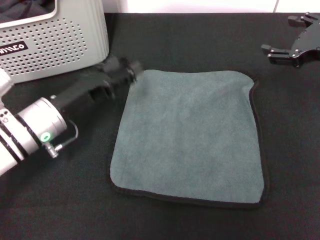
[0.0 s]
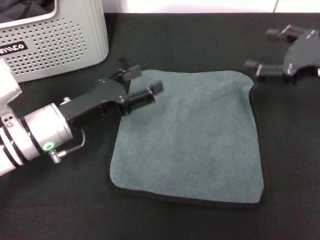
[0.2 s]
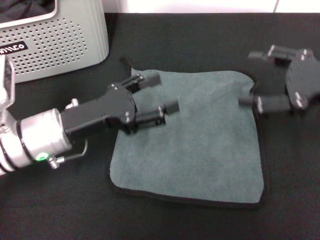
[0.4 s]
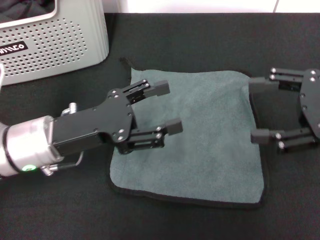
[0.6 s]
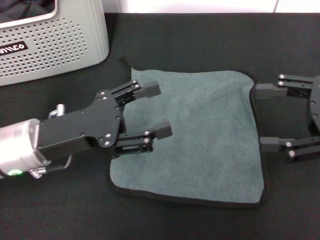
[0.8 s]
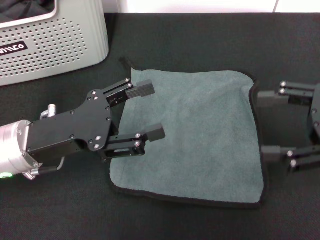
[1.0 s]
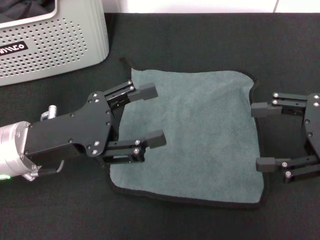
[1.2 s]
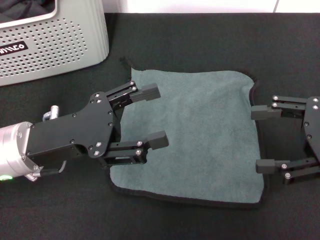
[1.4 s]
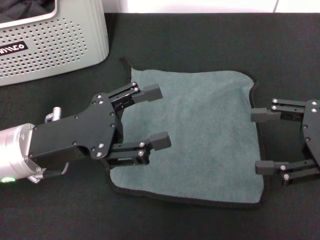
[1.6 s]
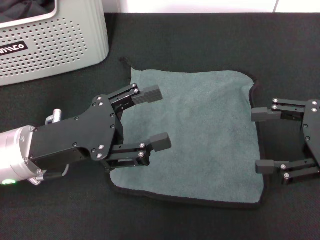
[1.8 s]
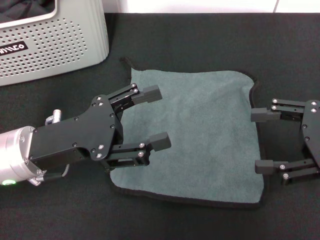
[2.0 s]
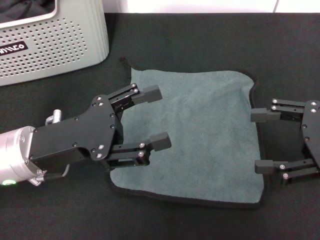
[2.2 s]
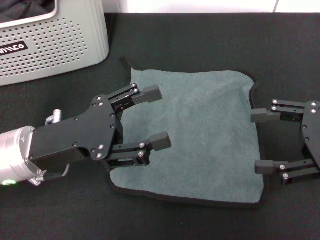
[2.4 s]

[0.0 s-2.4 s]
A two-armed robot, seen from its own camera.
Task of the whole recording: pick up the towel from the storage box and lay it flat on the black tablecloth.
0.0 to 1.2 s: The right gripper is displaced backward by approximately 10 cm. Meanwhile the left gripper travels upward and backward by some 10 cm.
1.2 to 2.4 s: The grippers move only a little.

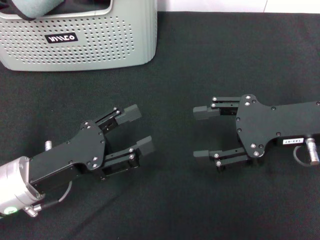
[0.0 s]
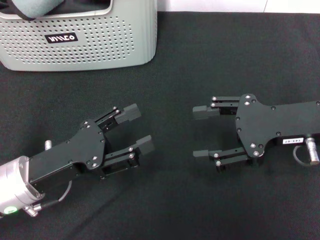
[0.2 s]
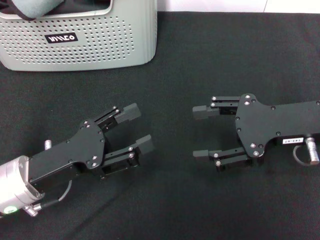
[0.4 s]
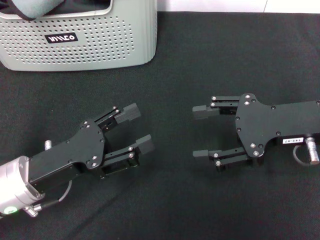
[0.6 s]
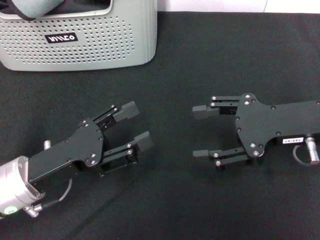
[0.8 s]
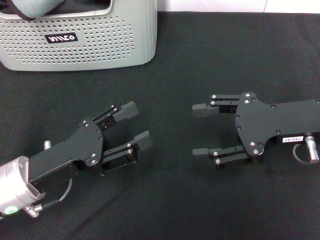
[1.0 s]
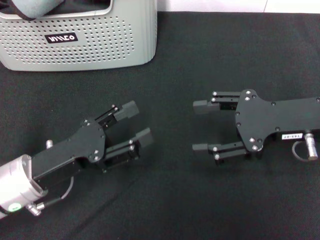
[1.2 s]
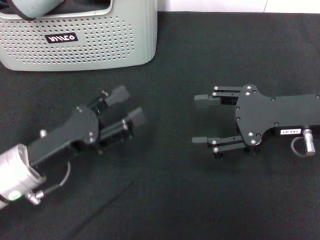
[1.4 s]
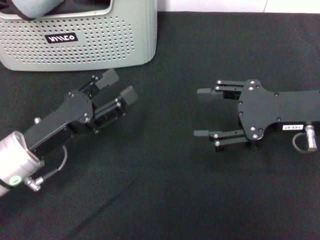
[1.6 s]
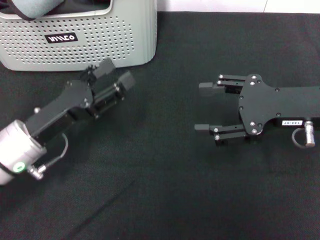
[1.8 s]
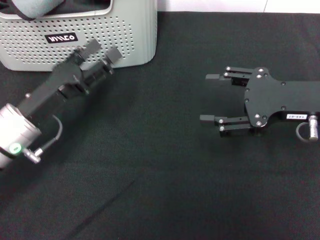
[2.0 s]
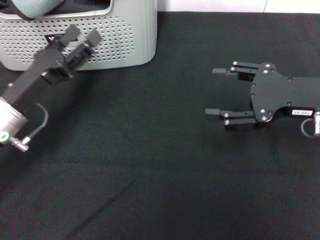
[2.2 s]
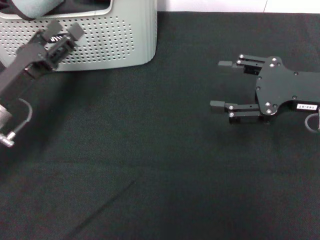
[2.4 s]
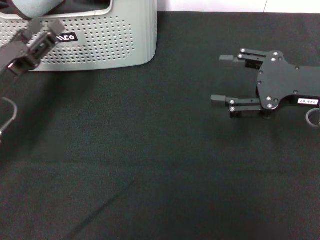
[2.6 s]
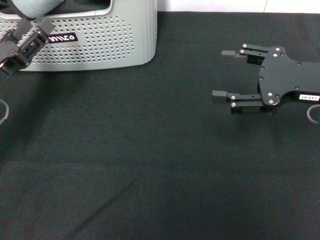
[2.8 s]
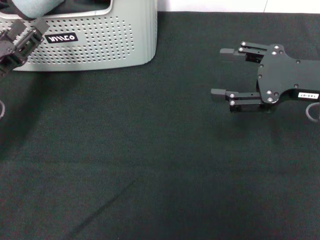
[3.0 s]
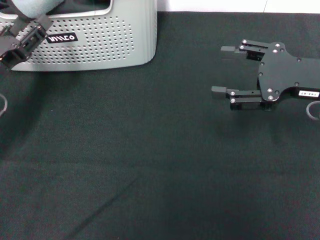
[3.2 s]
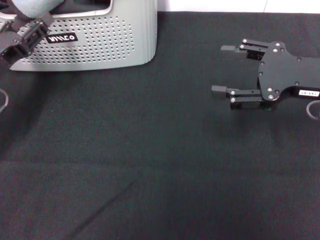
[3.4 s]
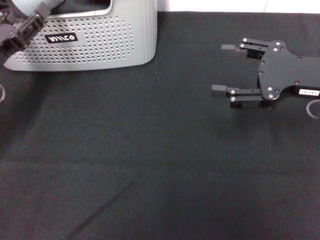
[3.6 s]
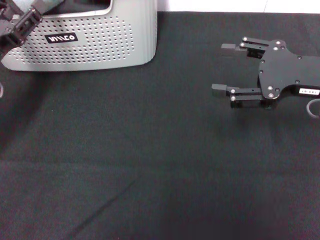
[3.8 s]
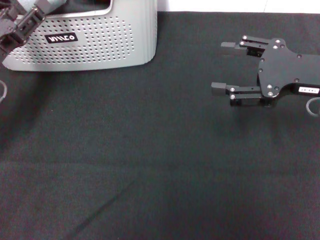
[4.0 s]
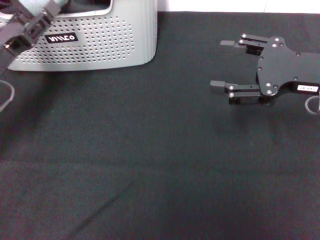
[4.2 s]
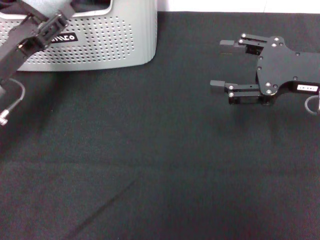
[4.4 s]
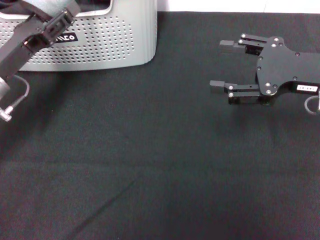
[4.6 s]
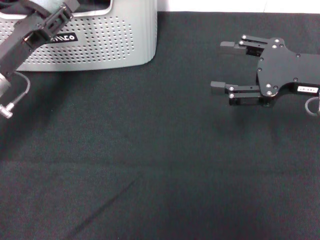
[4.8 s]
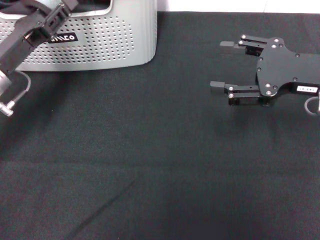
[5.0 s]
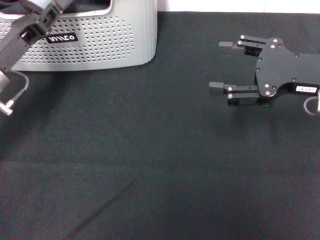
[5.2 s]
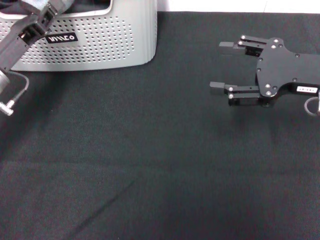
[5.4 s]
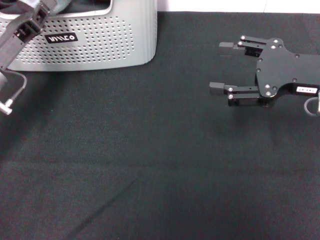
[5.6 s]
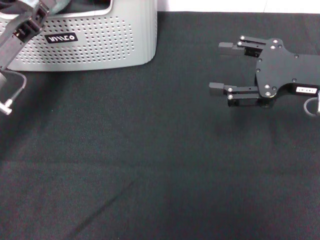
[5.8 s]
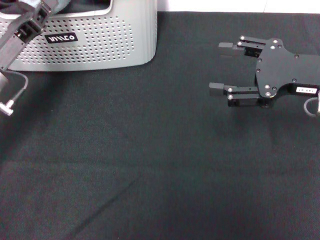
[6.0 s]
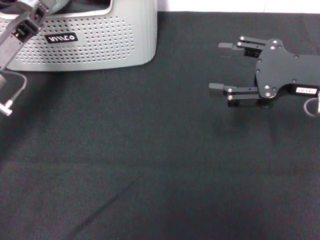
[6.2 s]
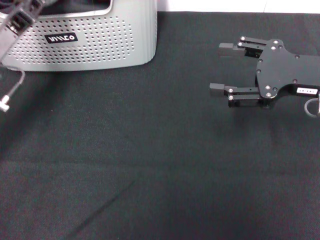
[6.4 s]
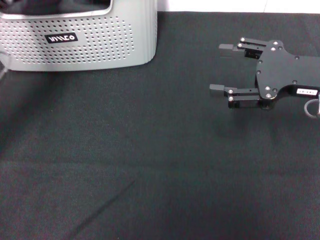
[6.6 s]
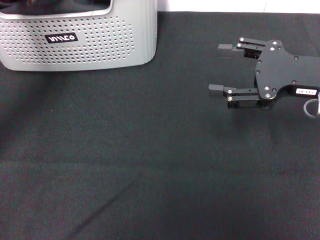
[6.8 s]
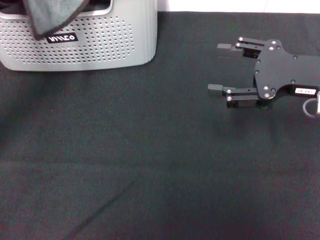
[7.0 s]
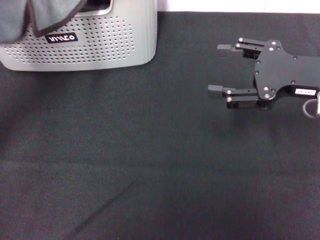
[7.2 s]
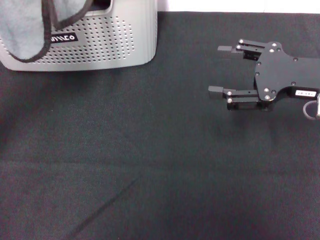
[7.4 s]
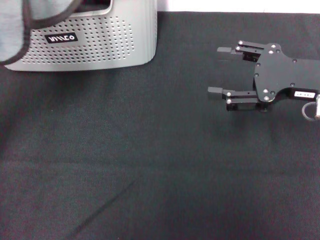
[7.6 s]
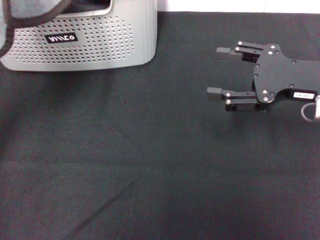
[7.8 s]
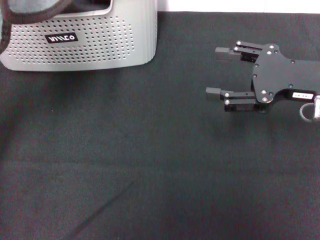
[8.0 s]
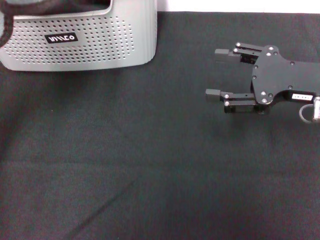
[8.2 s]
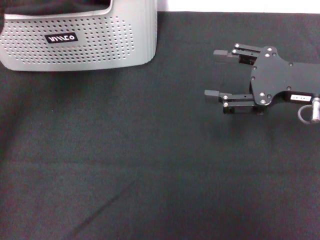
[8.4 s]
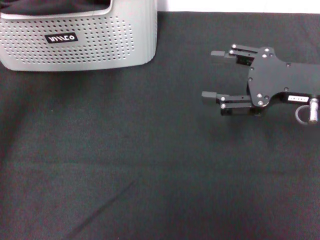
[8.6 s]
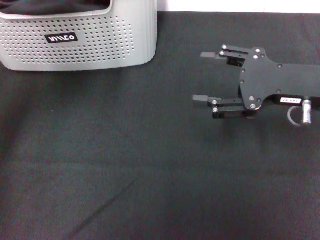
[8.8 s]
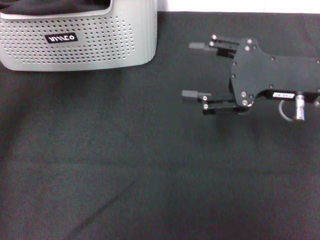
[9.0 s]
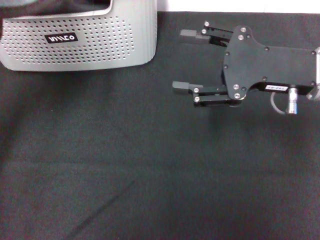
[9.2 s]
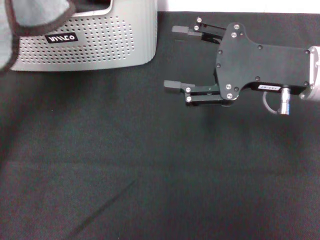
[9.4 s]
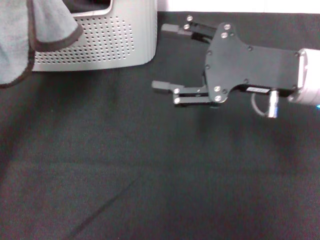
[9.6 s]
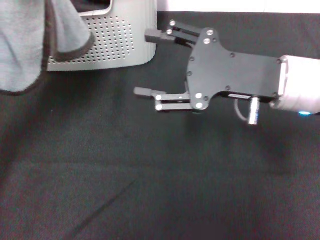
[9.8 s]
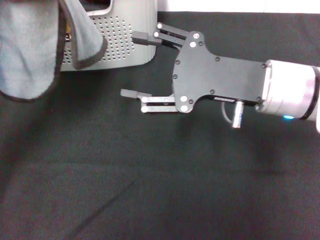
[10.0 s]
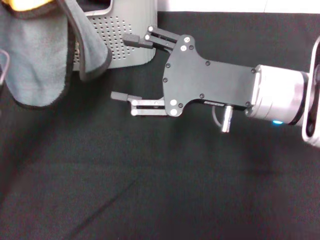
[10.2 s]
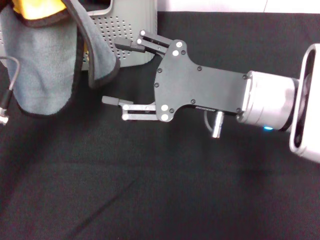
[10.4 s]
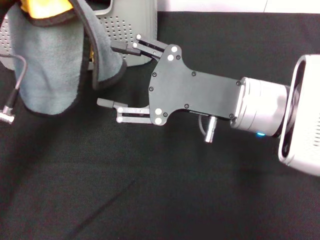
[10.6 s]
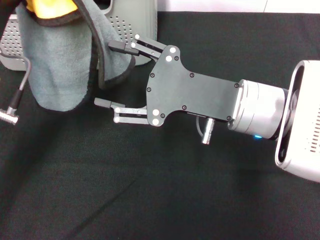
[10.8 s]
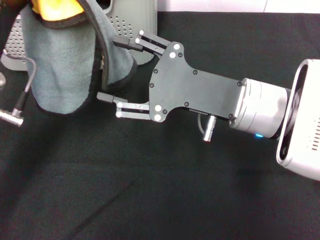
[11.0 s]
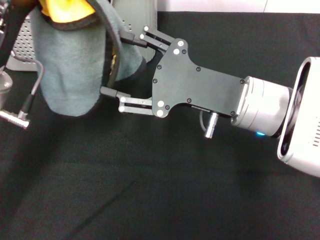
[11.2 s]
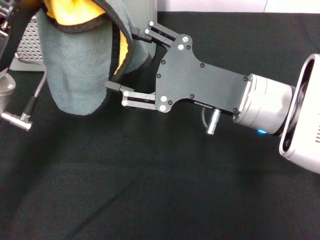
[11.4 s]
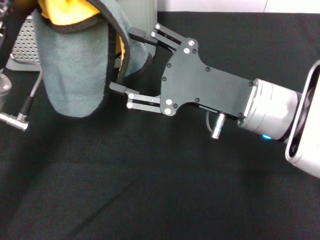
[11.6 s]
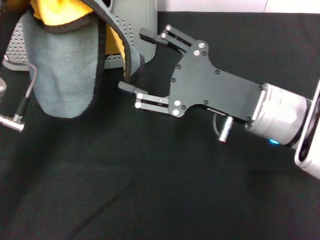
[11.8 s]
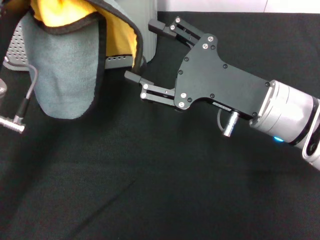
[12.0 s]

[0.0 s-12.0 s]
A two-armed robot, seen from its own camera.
Task of the whole recording: pick up the towel from the storage box and lay it flat on the black tablecloth.
Step, 0.0 to 5.8 s: Pick up a towel with the left gripper.
0.0 to 1.6 s: The grippers stay close to where they were, moving slightly.
1.6 to 3.0 s: The left gripper moves to the left, roughly 10 cm.
3.0 to 4.4 s: The grippers move only a little.
4.4 to 6.0 s: The left gripper closes.
6.0 to 7.6 s: The left gripper heads upward, covering approximately 10 cm.
7.6 to 9.0 s: The grippers move only a little.
9.0 to 10.4 s: The right gripper goes some 10 cm to the left. Meanwhile the left gripper moves downward, roughly 10 cm.

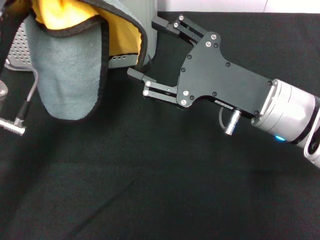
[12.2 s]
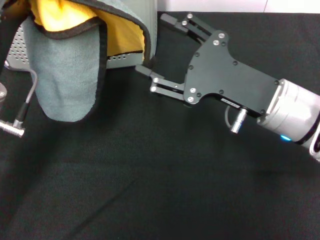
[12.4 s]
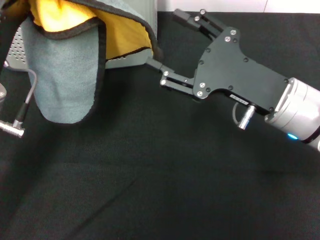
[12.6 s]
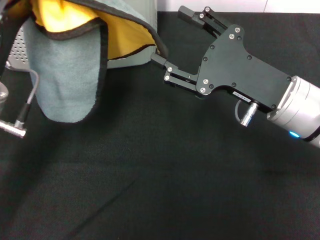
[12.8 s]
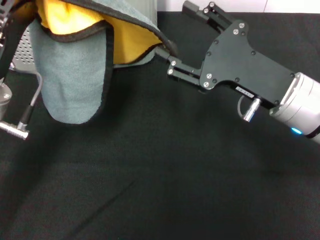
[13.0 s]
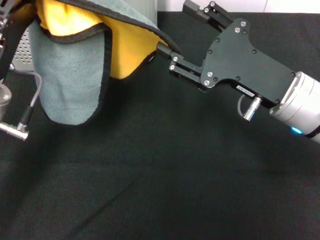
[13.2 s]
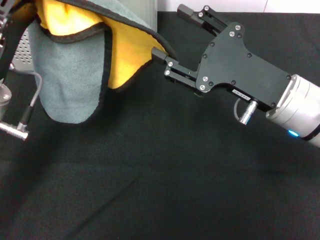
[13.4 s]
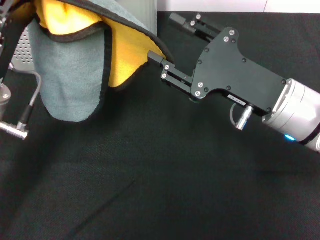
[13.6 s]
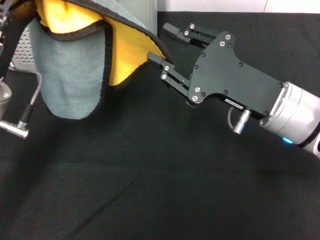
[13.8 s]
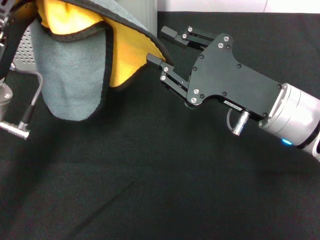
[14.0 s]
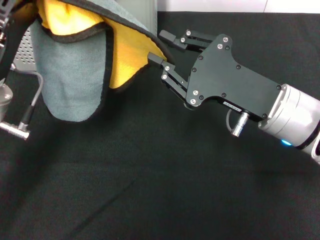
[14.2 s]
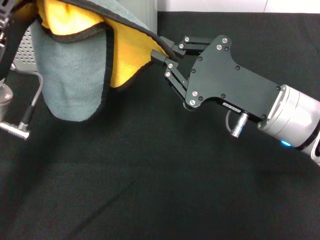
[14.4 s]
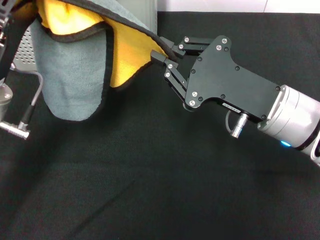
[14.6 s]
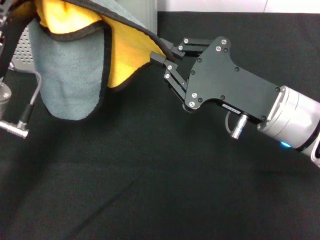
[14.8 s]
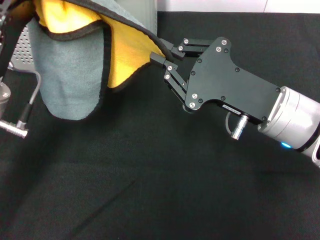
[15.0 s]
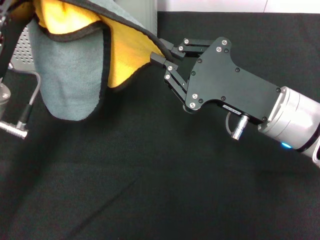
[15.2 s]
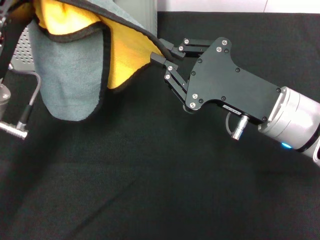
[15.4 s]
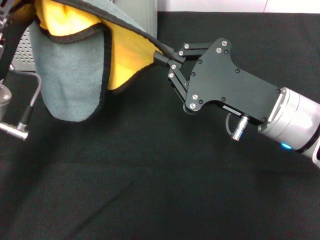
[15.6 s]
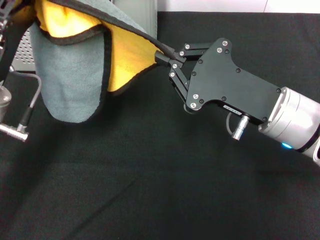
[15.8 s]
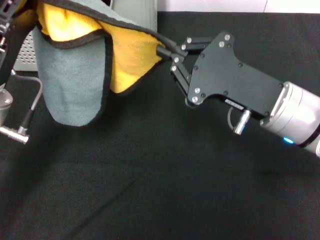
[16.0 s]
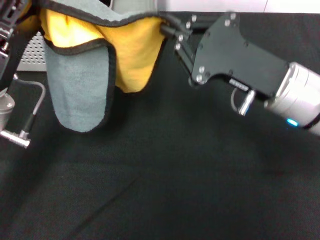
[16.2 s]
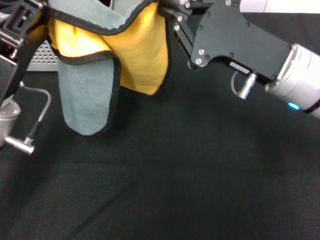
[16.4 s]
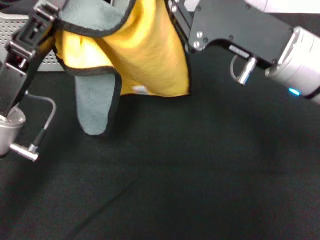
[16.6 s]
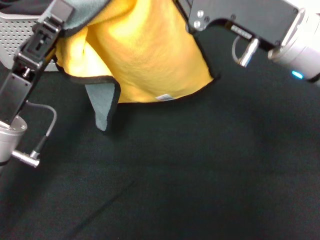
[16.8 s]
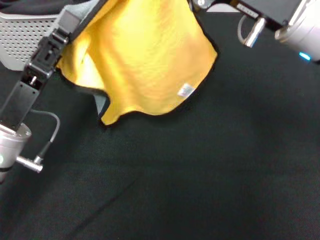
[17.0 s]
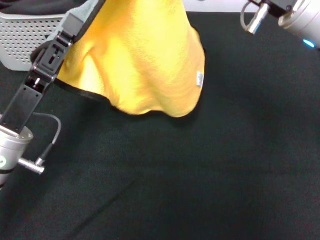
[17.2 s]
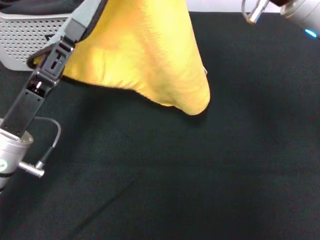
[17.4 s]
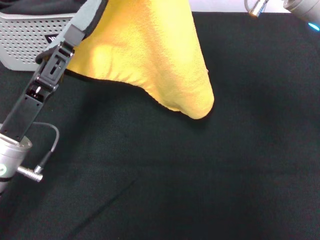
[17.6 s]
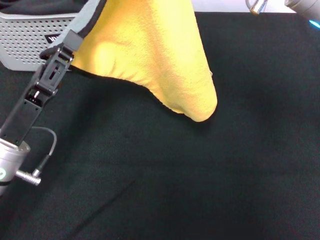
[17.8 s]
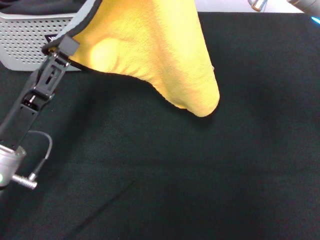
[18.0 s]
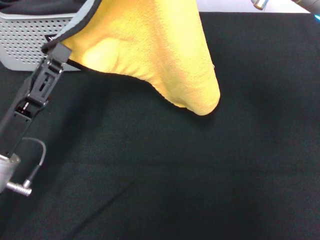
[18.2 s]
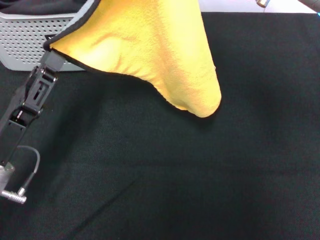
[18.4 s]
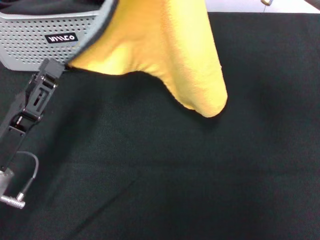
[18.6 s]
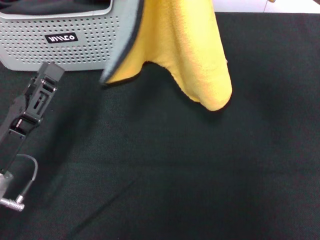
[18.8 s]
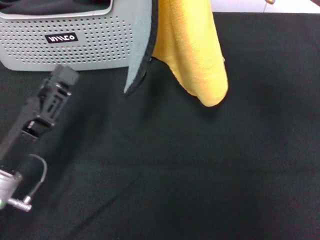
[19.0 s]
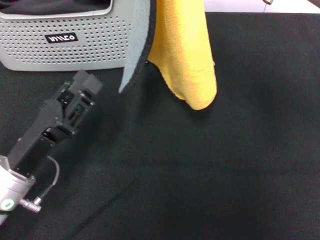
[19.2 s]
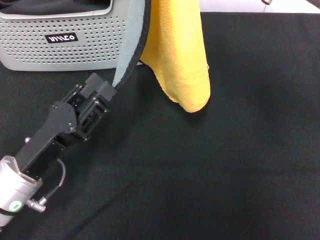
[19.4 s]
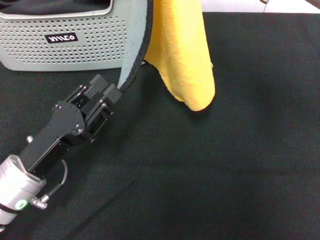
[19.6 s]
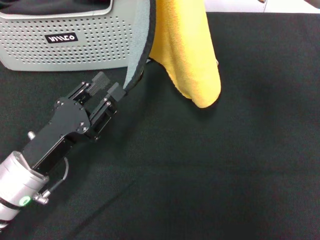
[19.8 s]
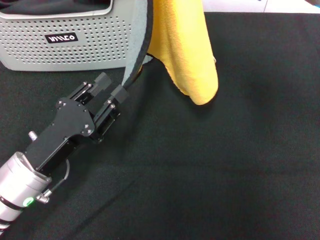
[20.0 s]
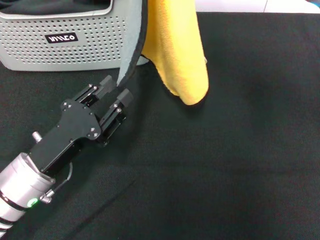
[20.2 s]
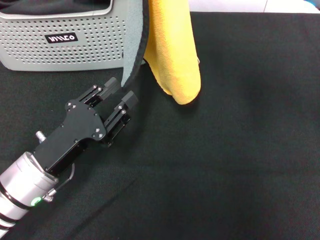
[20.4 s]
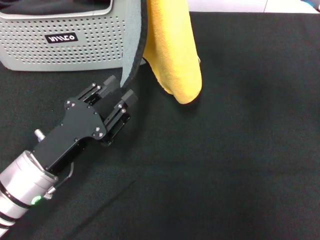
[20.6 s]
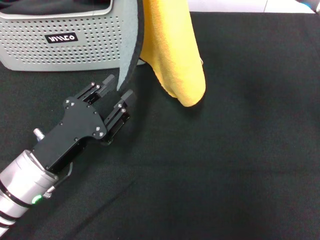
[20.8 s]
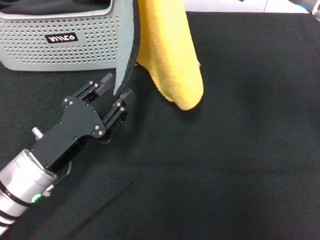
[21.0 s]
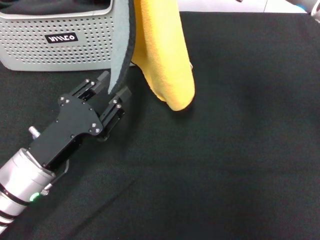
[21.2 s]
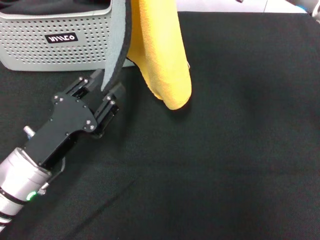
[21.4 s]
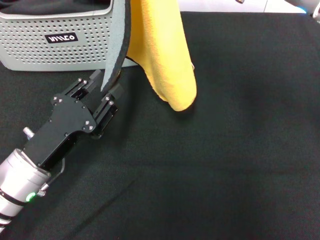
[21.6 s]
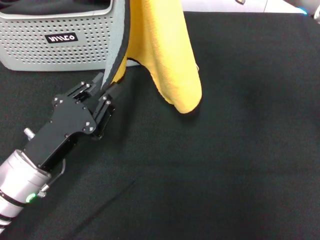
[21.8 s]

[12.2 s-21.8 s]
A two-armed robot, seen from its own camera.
Task of the whole recording: pick up the towel from the storage box and lay it flat on the black tablecloth.
Step, 12.2 to 15.8 s: Spread the towel flat with the left gripper.
12.2 to 13.8 s: The grippers stay close to where they were, moving slightly.
13.8 to 15.4 s: The right gripper closes its fingers.
15.4 to 17.0 s: The right gripper moves upward, approximately 10 cm.
17.0 to 18.6 s: The left gripper ends up some 5 cm from where it was, and opens up.
20.2 to 21.8 s: The grippers make only small movements.
